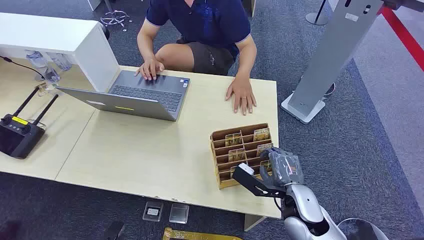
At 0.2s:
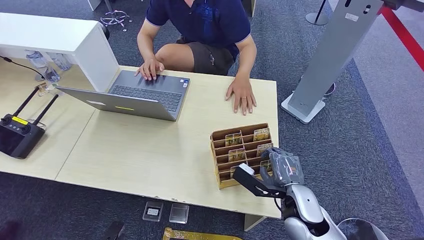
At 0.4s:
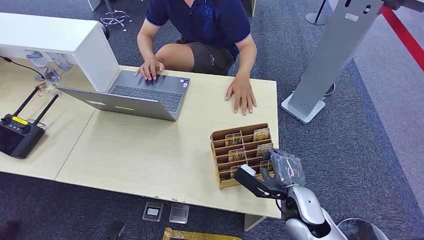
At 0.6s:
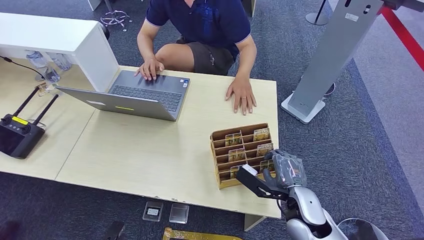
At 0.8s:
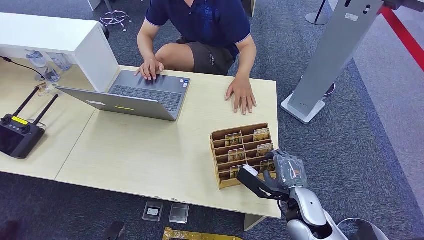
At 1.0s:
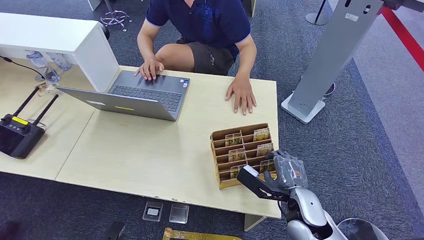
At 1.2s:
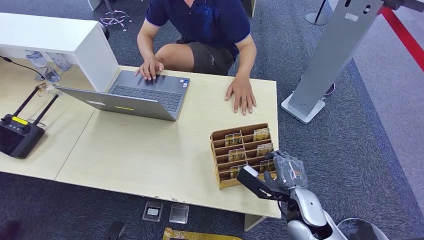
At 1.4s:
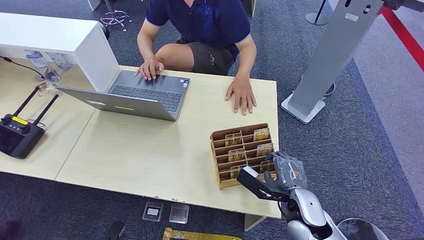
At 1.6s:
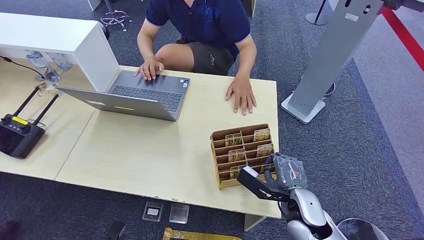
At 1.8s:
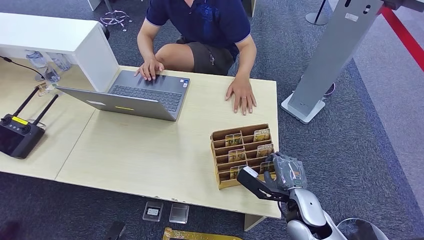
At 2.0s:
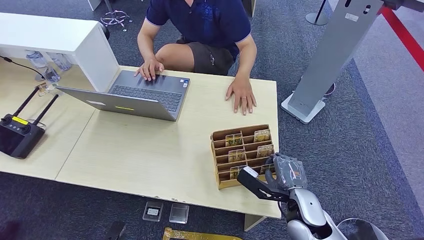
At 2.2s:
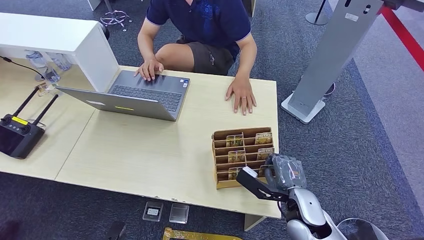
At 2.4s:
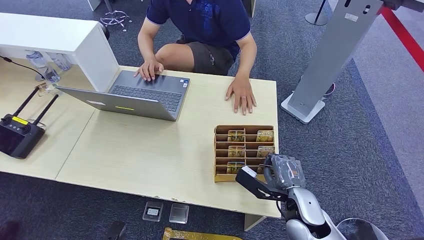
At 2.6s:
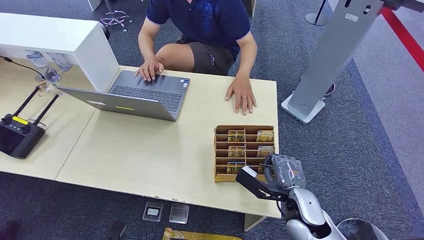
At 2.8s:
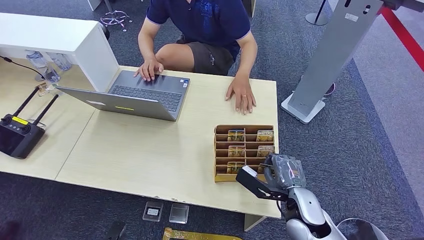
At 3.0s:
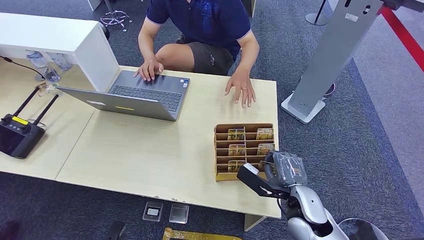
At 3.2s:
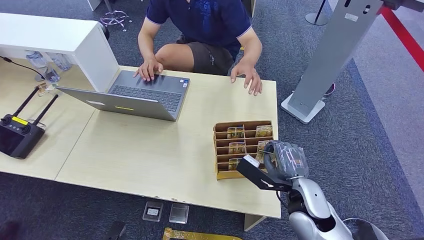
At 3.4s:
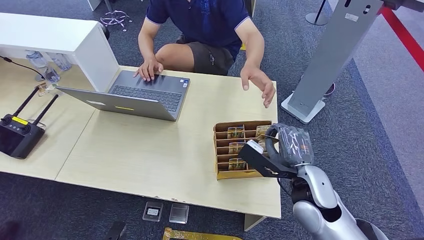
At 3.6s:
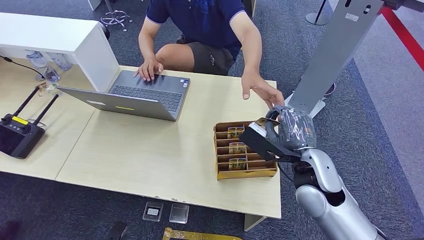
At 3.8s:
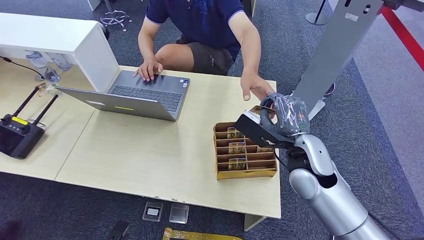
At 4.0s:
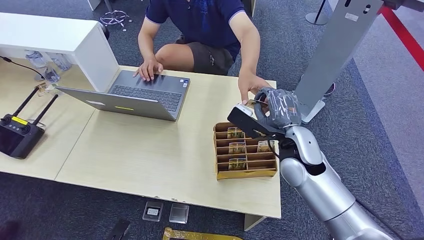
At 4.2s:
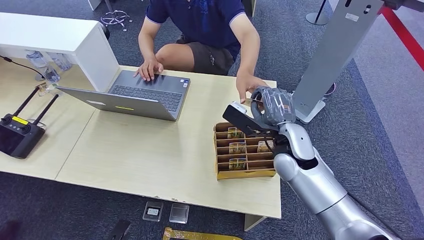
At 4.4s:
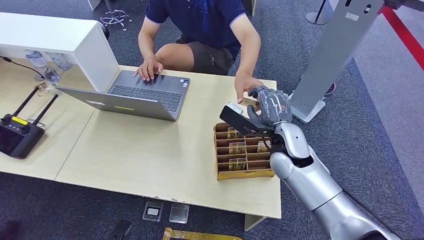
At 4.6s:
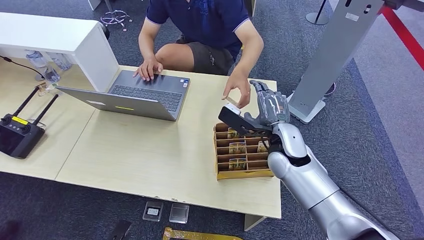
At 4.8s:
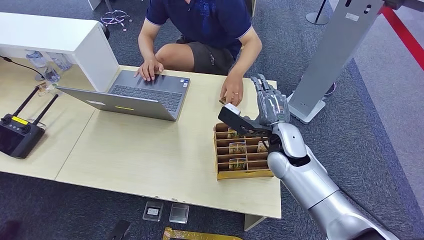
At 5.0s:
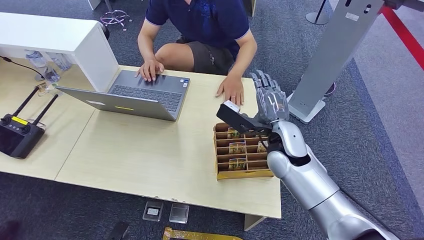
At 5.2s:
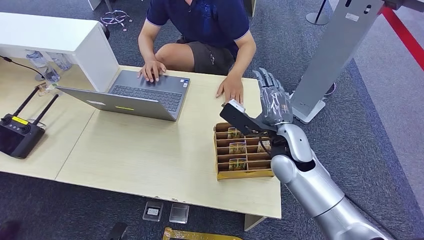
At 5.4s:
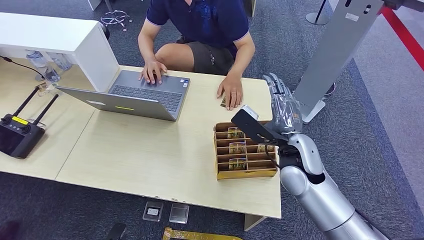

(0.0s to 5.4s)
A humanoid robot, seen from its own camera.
Step, 0.0s - 3.4s: Pick up the key card from the card box.
Step, 3.8s - 5.4s: Hand the key card to the target.
1.4s - 2.8s: Both hands stay put.
2.8s - 4.0s: The right hand heads upward and forward, covering some 15 cm.
4.0s - 5.4s: The hands move only a little.
